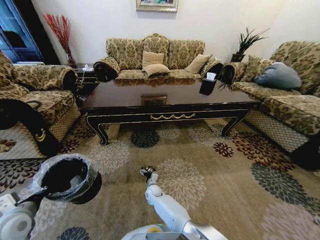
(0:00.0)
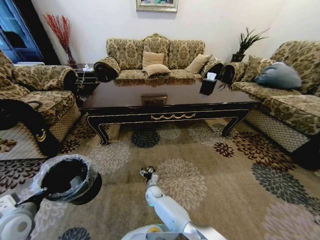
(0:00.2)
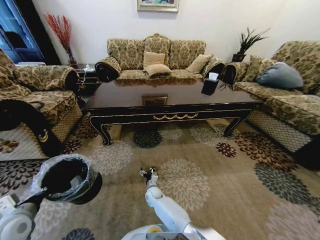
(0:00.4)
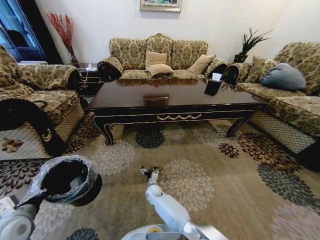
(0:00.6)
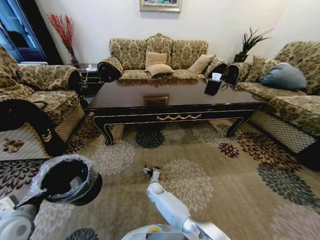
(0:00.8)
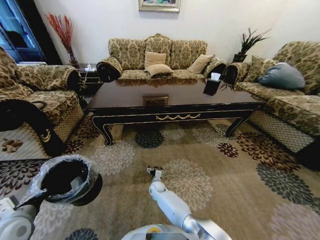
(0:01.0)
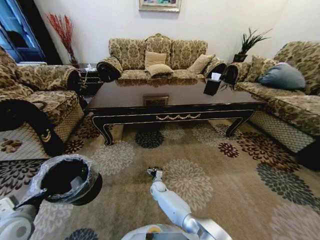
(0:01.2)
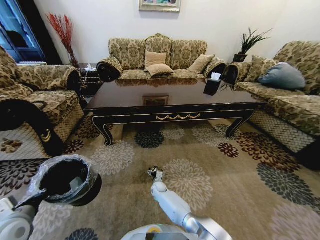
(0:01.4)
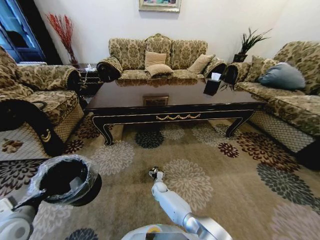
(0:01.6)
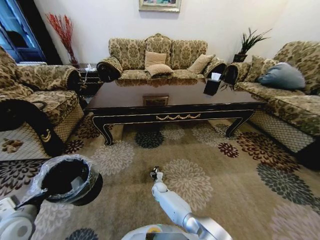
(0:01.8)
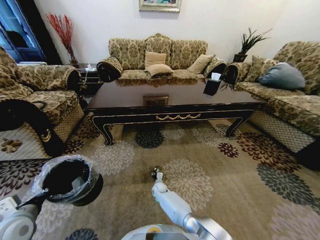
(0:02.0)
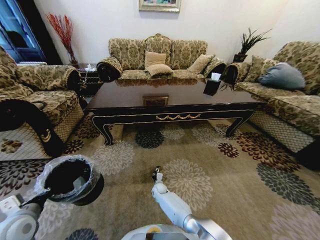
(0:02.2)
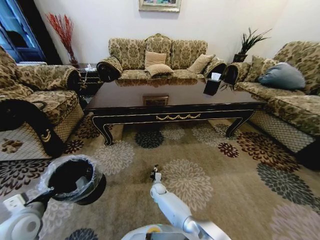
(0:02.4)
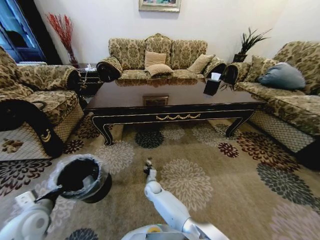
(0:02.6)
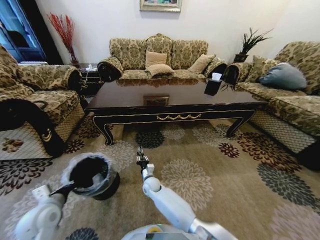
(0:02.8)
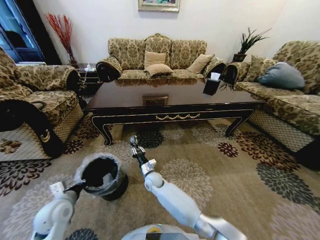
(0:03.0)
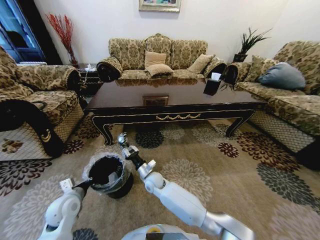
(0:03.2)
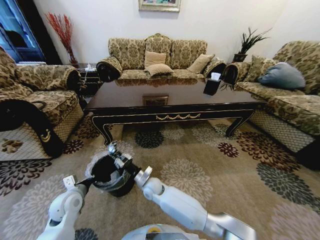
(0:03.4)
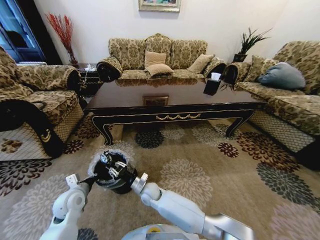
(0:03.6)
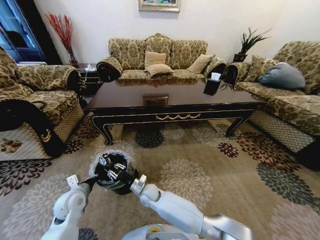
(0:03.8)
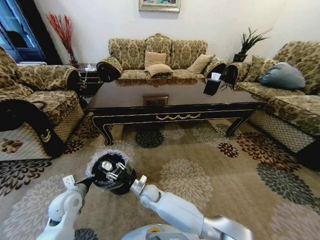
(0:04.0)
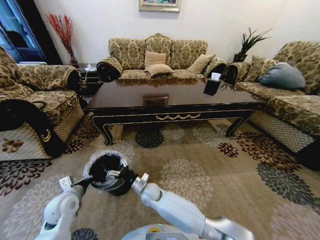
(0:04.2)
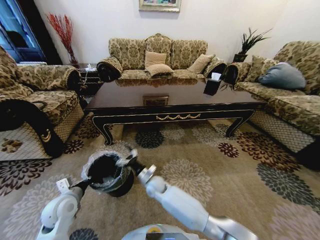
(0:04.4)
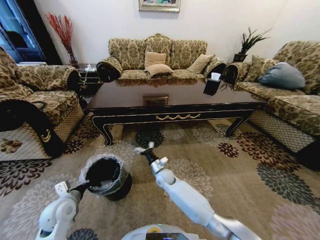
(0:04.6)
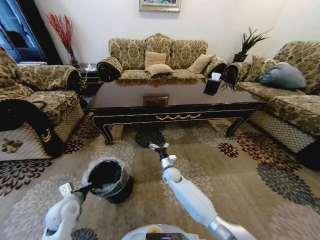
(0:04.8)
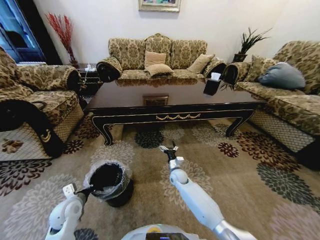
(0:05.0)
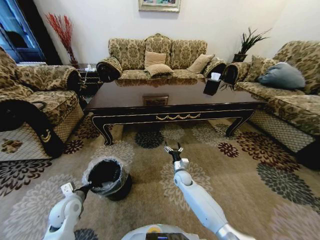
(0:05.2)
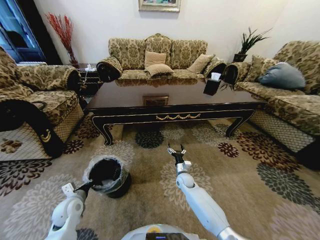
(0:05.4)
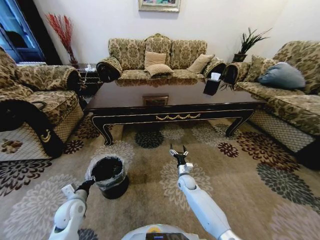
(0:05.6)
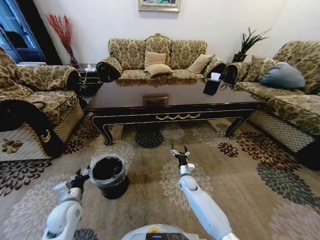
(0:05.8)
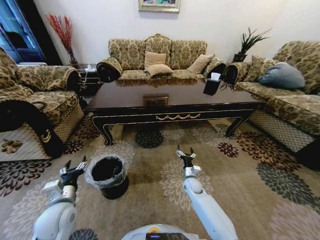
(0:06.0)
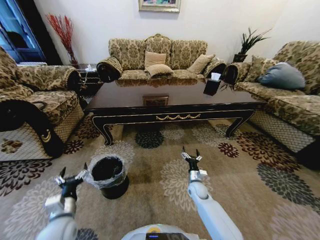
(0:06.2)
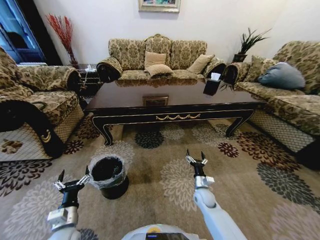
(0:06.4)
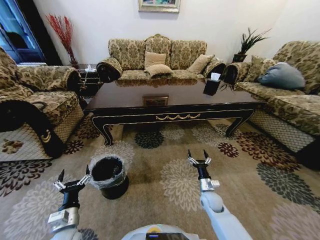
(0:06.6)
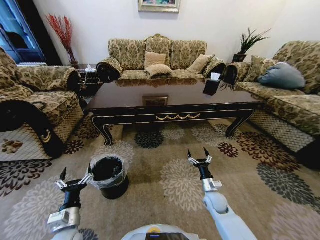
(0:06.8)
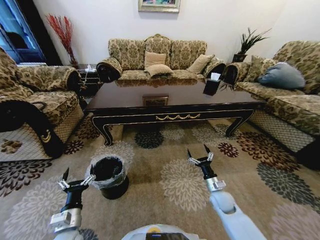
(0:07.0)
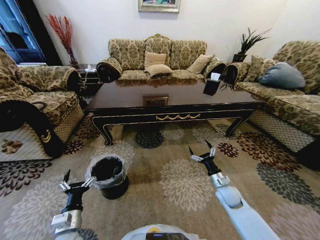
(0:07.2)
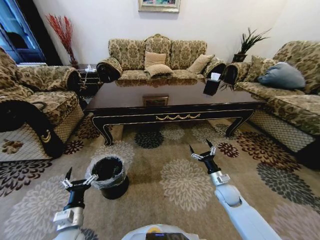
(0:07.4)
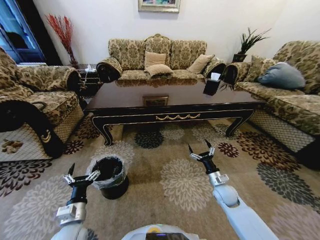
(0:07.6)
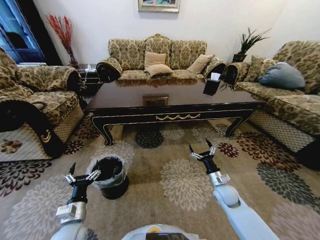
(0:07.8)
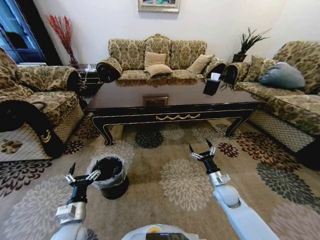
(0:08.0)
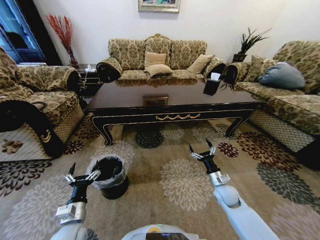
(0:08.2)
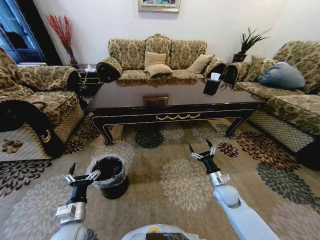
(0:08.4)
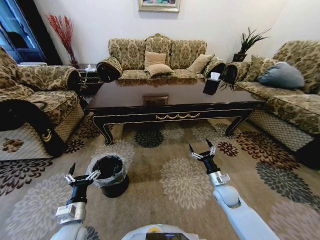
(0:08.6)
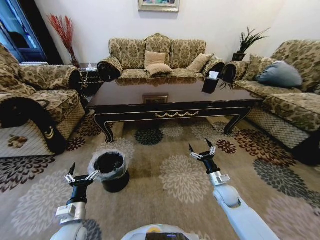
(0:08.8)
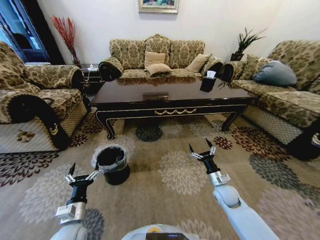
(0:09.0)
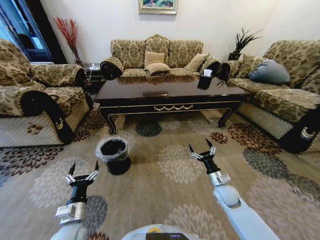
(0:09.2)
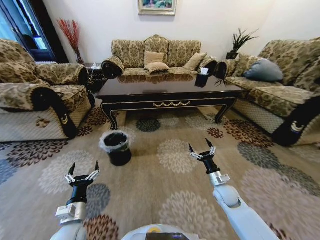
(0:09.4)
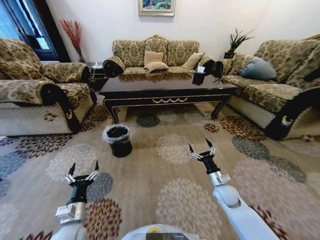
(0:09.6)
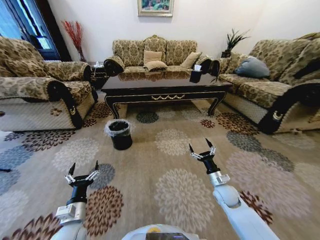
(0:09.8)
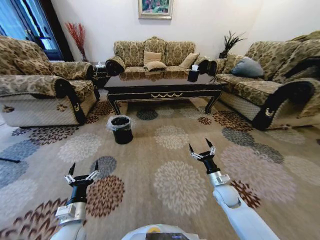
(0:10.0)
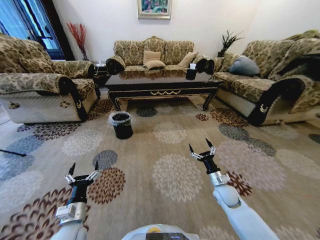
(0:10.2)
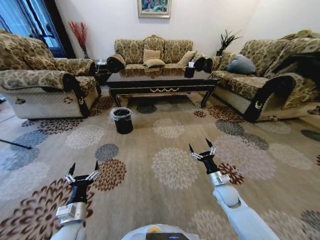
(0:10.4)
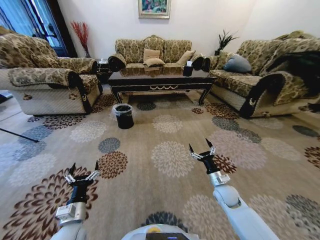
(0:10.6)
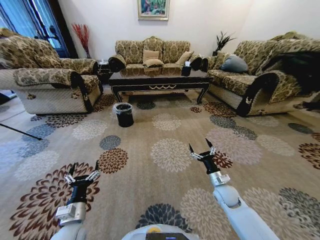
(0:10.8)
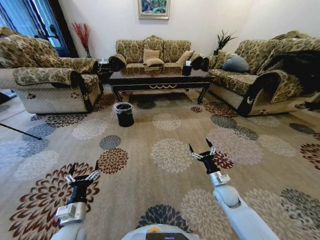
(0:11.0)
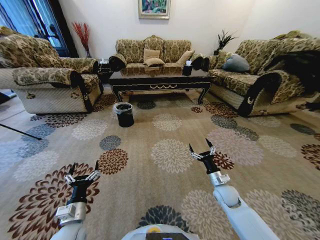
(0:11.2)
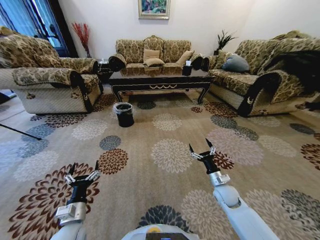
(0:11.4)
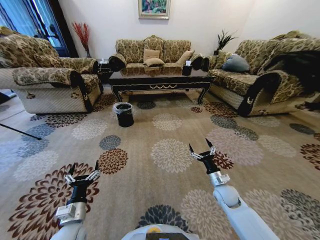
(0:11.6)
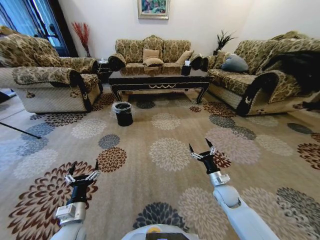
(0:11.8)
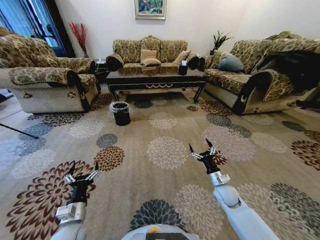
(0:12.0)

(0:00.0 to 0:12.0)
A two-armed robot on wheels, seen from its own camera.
Task of the whole recording: Move to the front of the table and pick up the trash from the floor, then place it into the trash bin.
0:00.0 - 0:01.6: The right gripper moves some 5 cm.
0:01.6 - 0:03.0: The left gripper moves to the right, forward and downward, roughly 10 cm. The right gripper shifts some 15 cm upward, and closes its fingers.
0:03.0 - 0:04.4: The right gripper opens.
0:04.4 - 0:06.0: The left gripper moves some 5 cm downward and comes back, and opens its fingers. Meanwhile the right gripper moves to the right, about 20 cm.
0:06.0 - 0:07.6: The right gripper shifts about 15 cm to the right, upward and backward. The left gripper moves backward, approximately 5 cm, and opens up.
